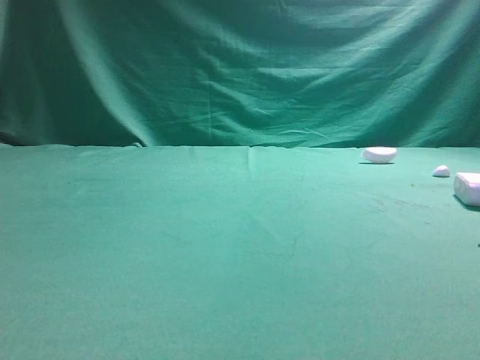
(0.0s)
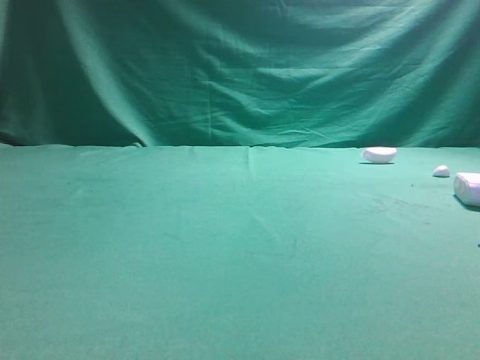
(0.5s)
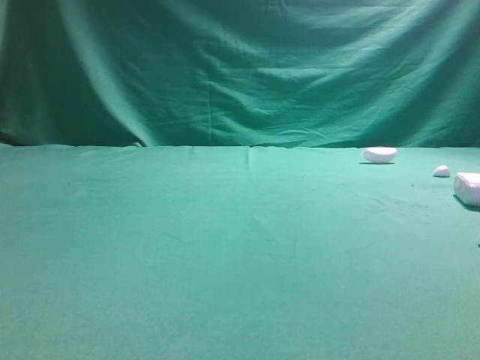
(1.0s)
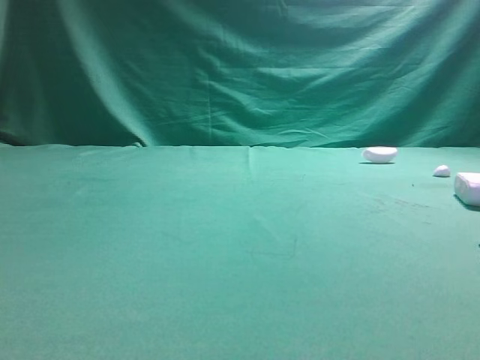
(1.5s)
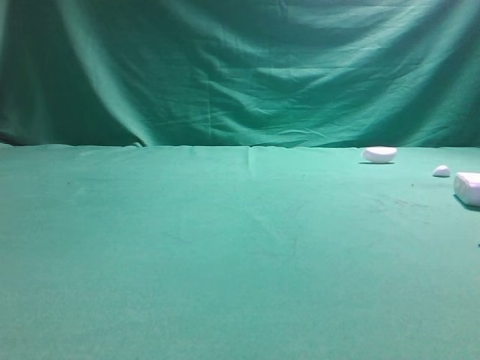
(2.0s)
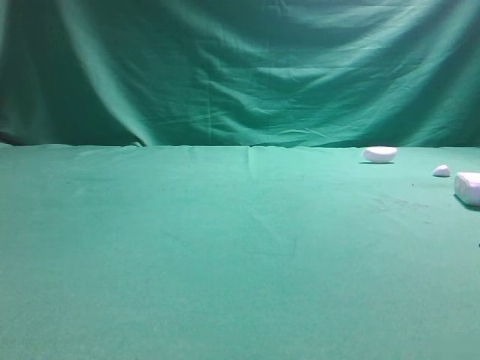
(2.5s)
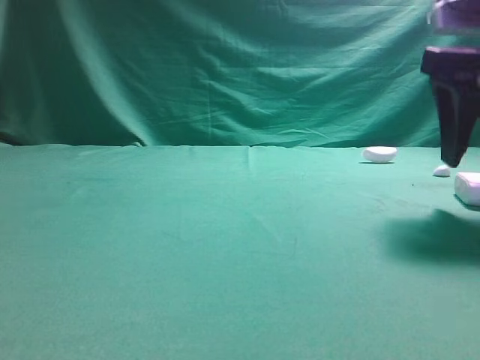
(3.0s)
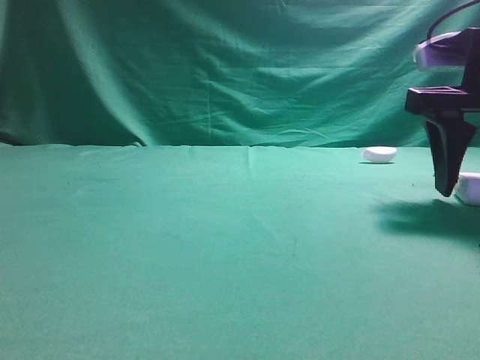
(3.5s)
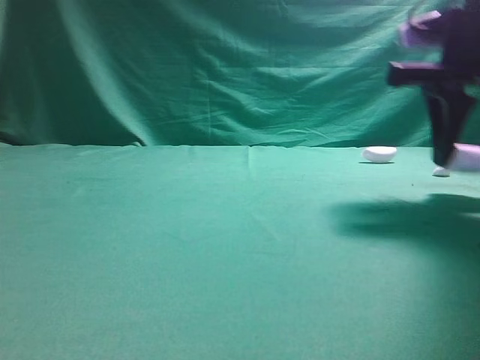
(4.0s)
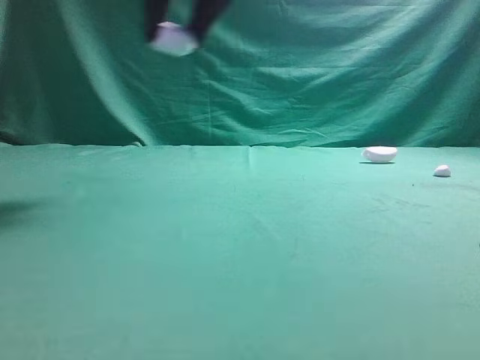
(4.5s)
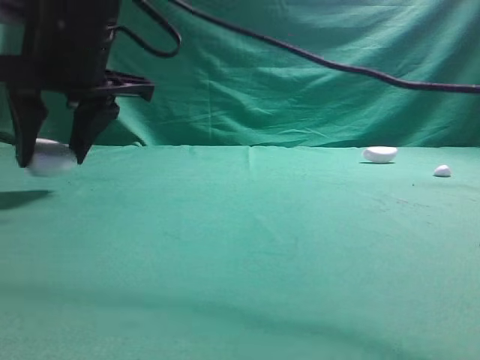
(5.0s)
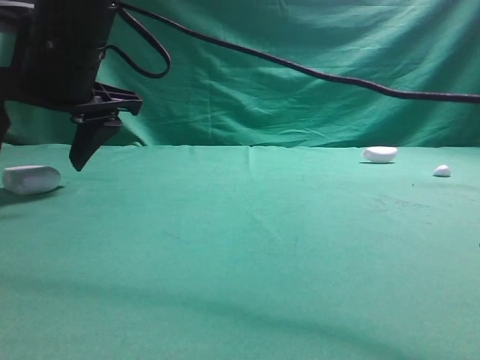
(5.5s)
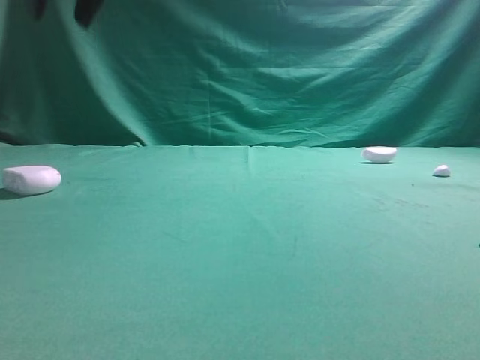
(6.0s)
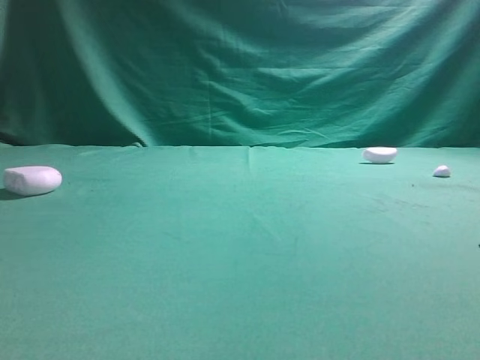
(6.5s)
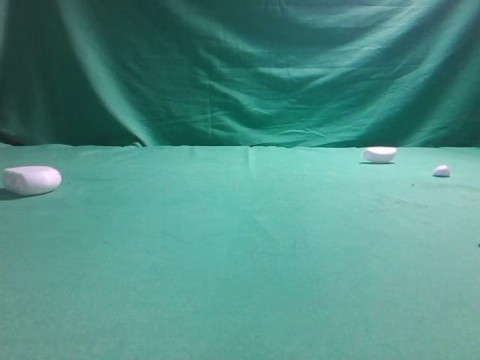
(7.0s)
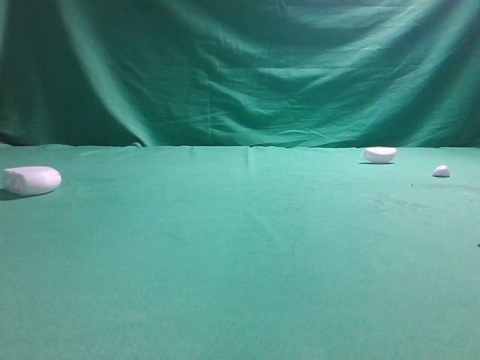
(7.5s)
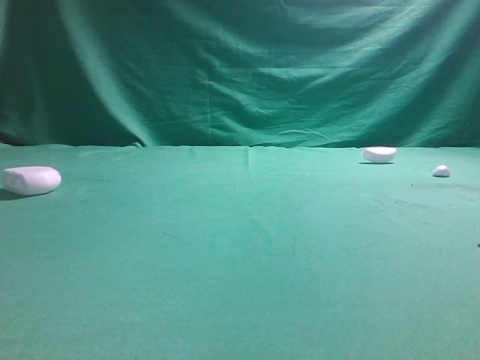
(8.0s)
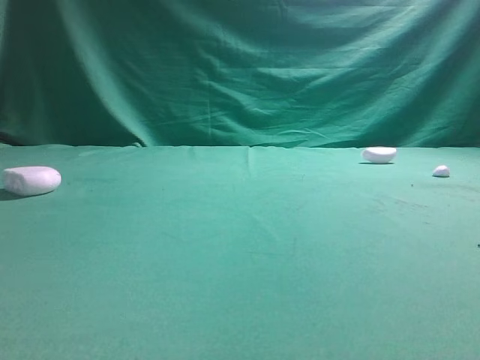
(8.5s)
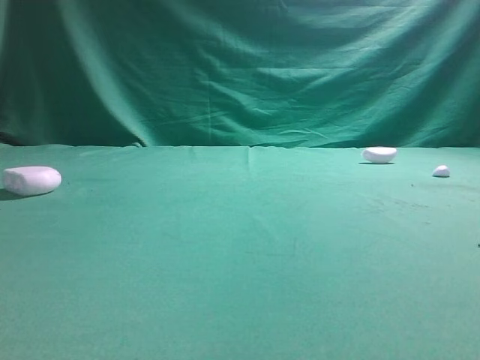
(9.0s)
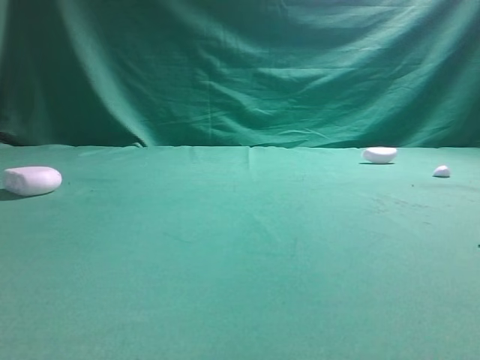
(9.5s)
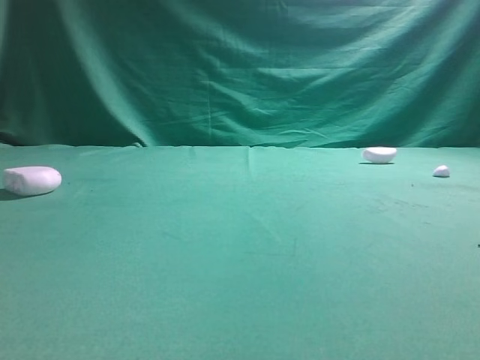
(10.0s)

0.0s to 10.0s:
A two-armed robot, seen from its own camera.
Step, 0.0s to 4.0s: Grasp the Bluetooth earphone case.
Step, 4.5s to 5.5s: Place bluetooth earphone case on the left side of the table.

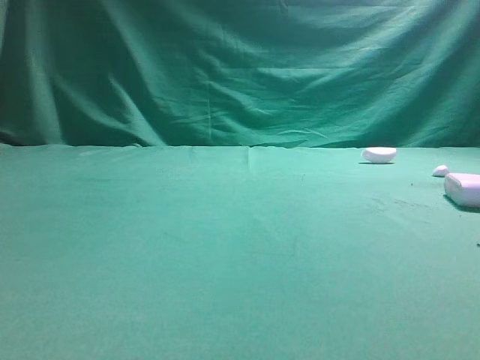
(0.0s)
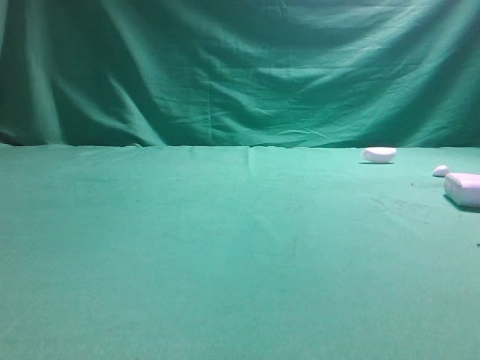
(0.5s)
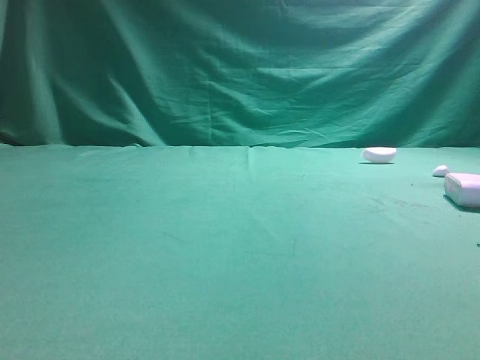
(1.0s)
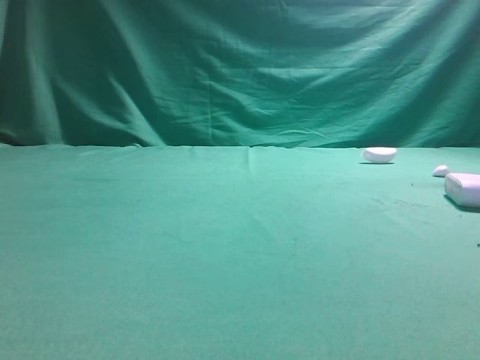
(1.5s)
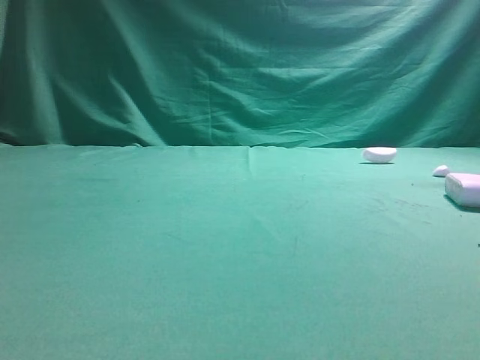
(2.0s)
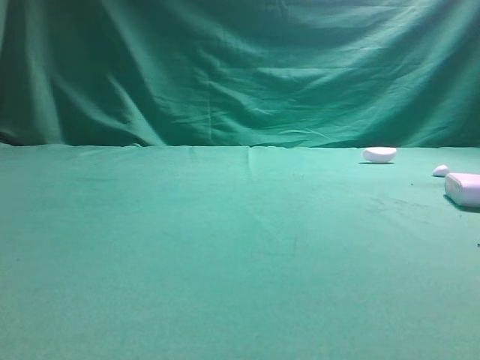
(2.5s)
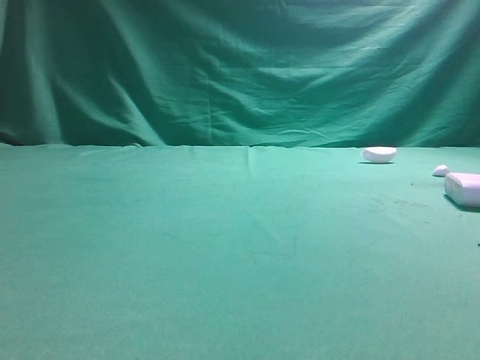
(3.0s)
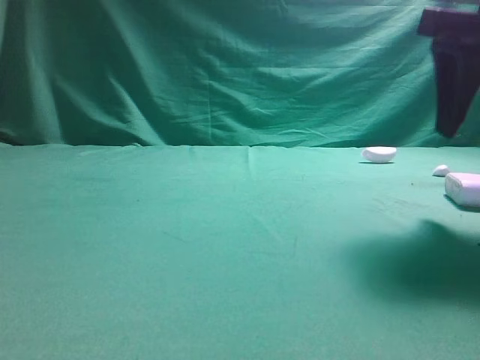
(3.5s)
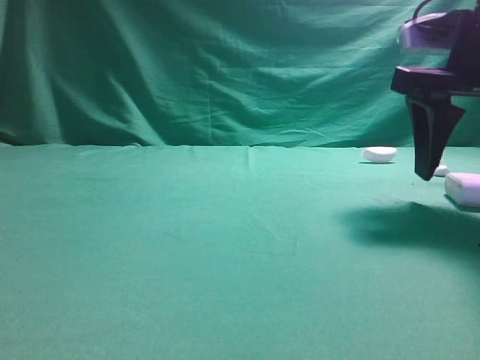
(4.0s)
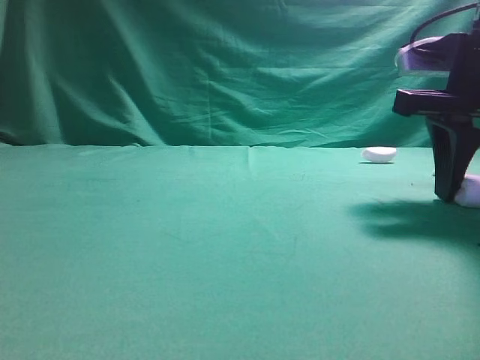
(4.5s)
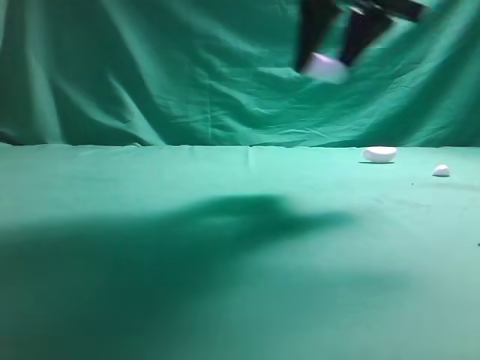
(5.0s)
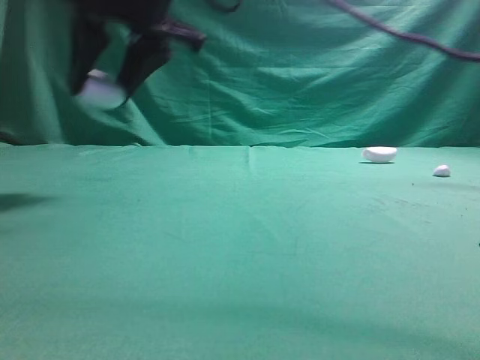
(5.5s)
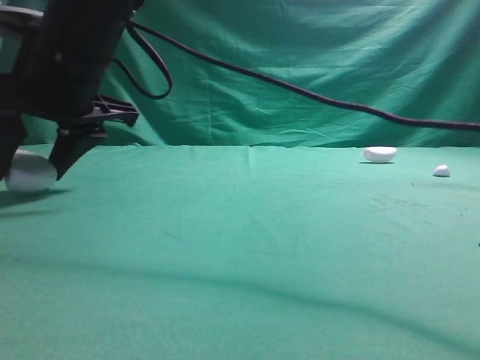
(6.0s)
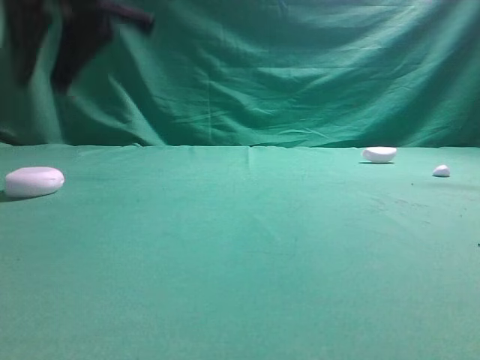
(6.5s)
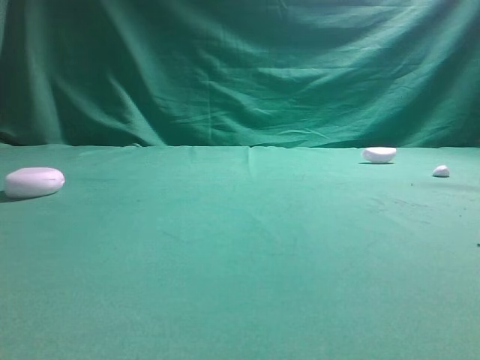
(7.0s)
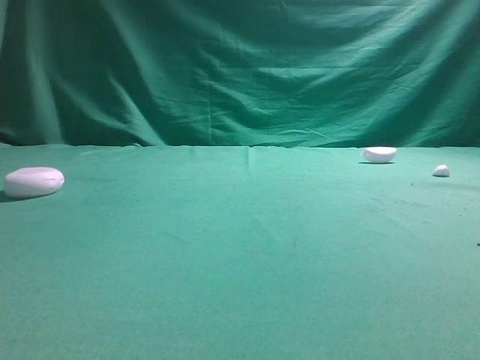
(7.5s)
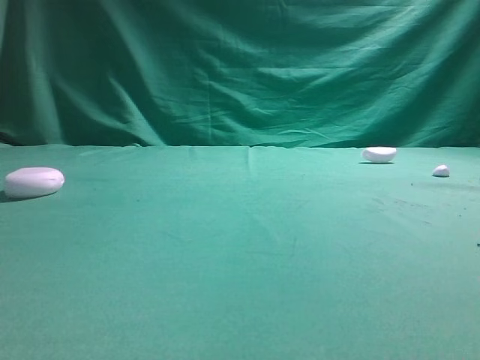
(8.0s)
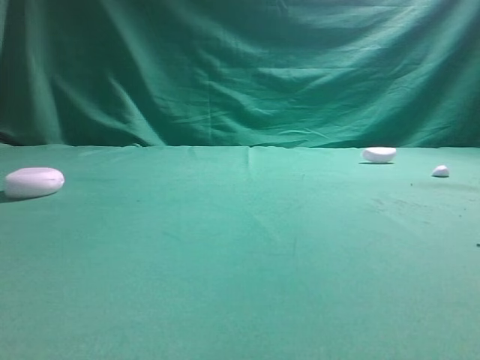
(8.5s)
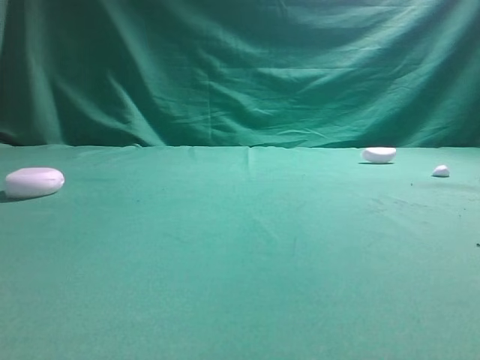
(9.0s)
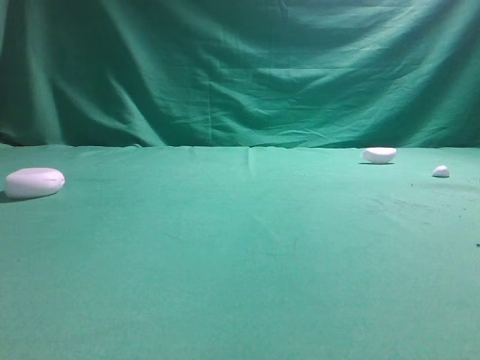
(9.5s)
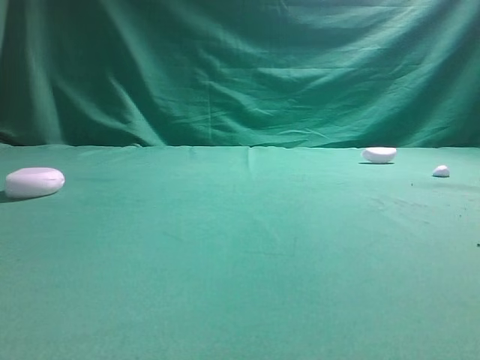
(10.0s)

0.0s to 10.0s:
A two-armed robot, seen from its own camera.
Step, 0.0s to 4.5s: Grasp the Bluetooth earphone case.
Step, 5.0s to 6.0s: Place bluetooth earphone case on the left side of the table.

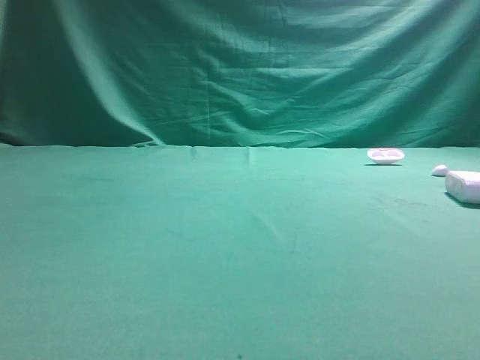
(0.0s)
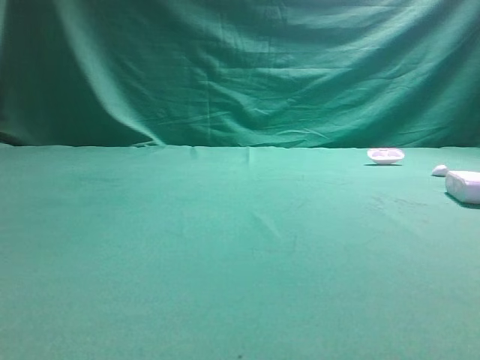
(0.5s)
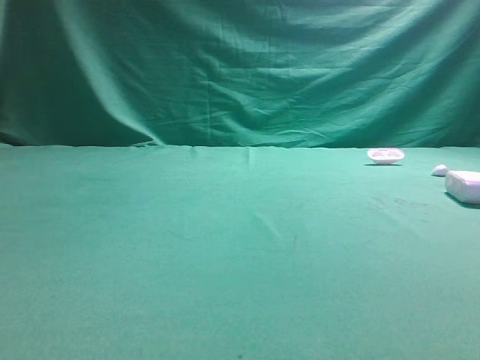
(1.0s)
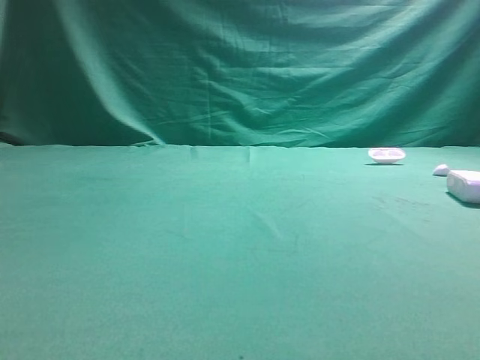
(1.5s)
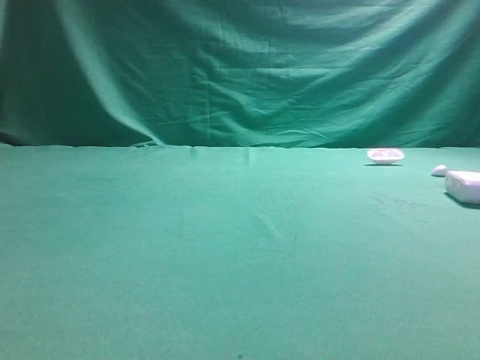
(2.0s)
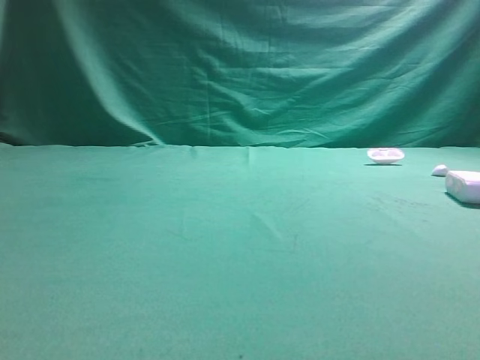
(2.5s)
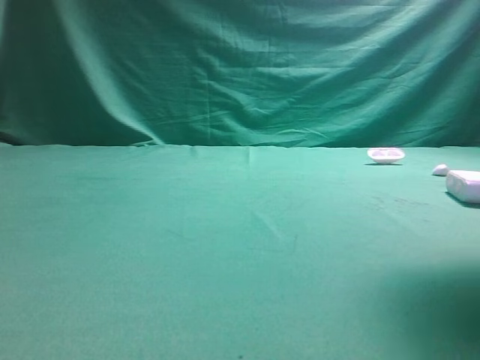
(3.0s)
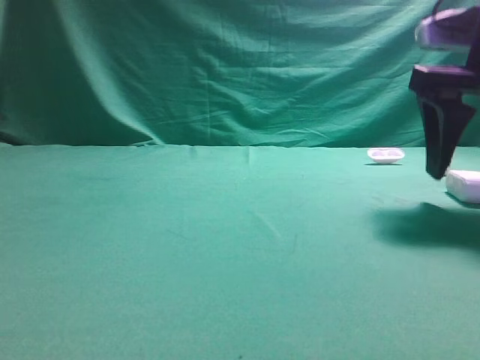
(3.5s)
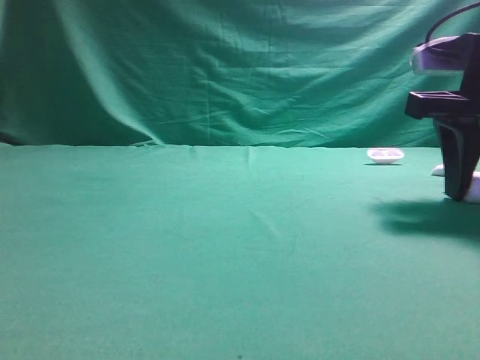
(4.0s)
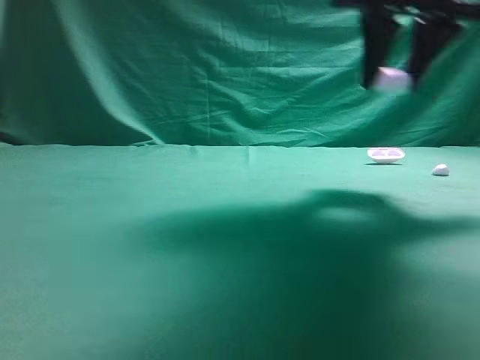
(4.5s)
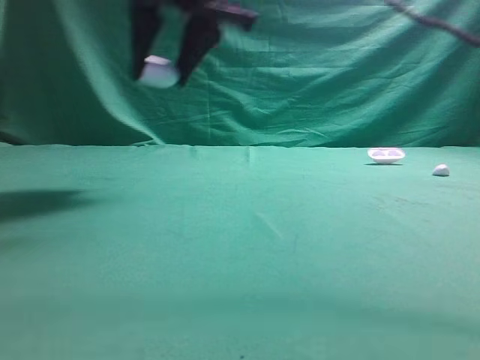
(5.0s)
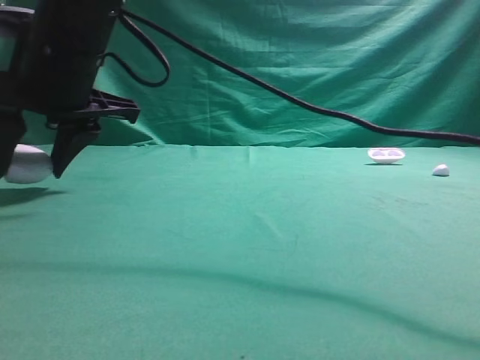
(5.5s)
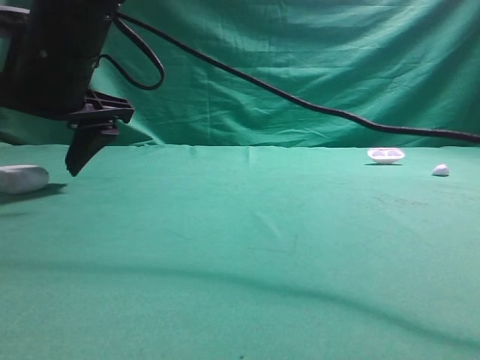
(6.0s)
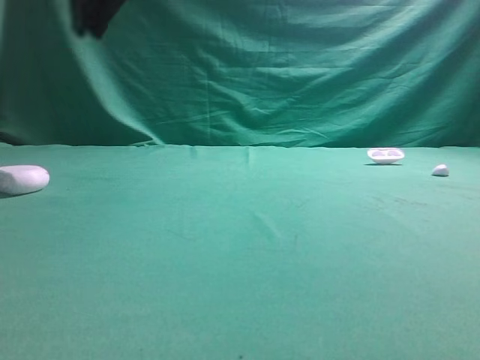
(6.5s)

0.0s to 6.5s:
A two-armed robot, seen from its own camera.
Step, 0.0s to 4.0s: Grasp the Bluetooth earphone case.
Step, 4.5s to 6.0s: Place bluetooth earphone case on the left side of the table.
